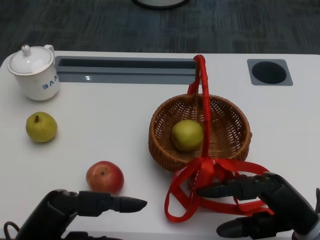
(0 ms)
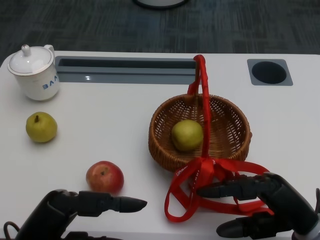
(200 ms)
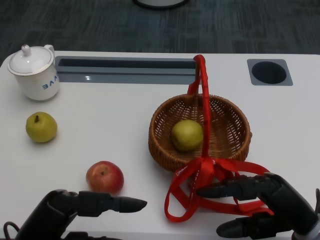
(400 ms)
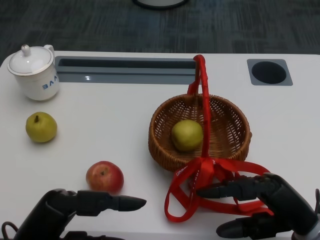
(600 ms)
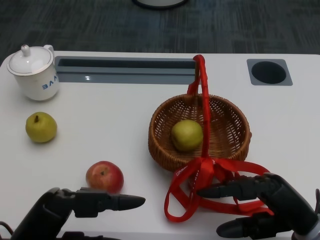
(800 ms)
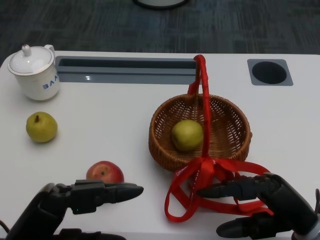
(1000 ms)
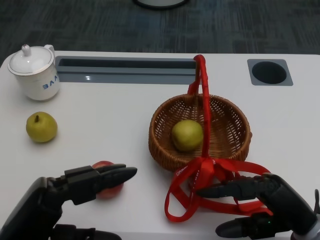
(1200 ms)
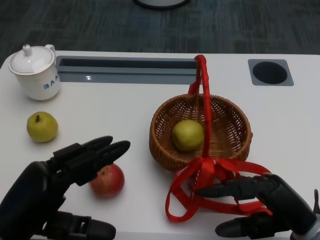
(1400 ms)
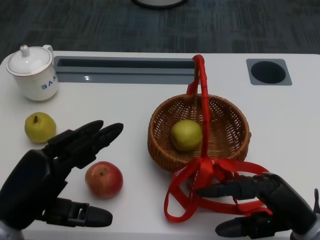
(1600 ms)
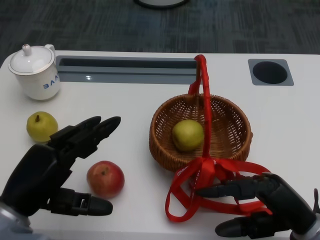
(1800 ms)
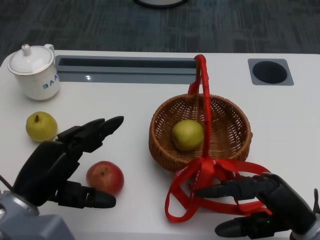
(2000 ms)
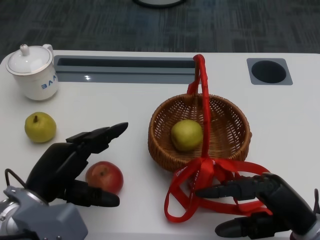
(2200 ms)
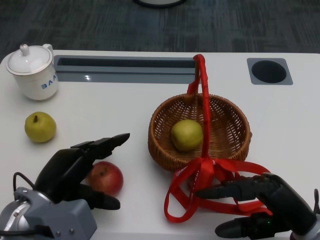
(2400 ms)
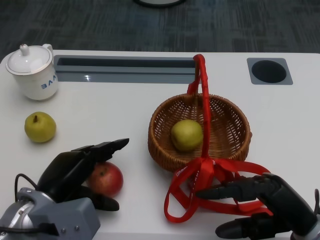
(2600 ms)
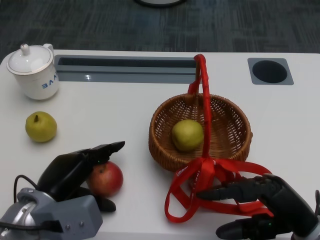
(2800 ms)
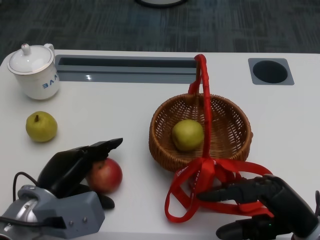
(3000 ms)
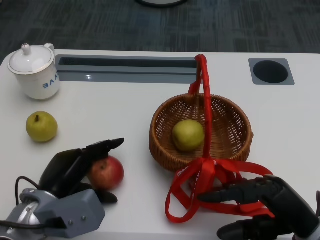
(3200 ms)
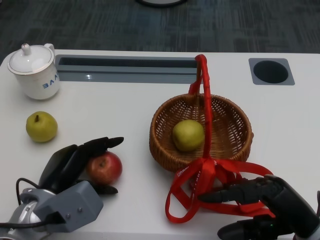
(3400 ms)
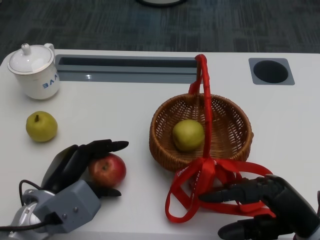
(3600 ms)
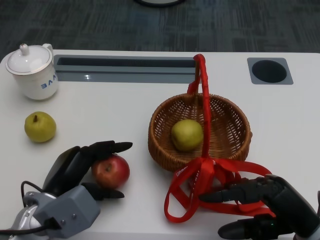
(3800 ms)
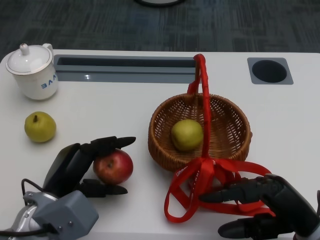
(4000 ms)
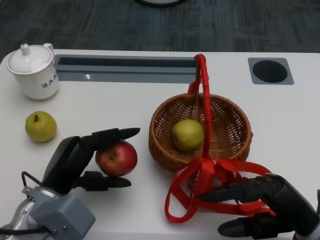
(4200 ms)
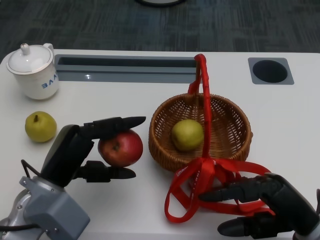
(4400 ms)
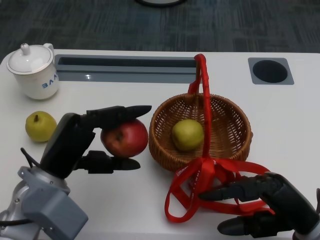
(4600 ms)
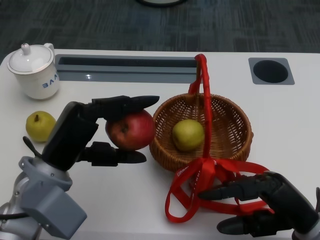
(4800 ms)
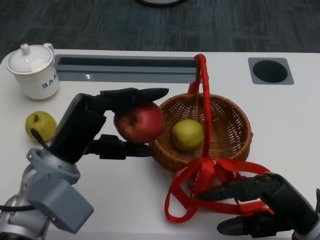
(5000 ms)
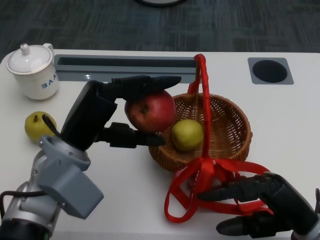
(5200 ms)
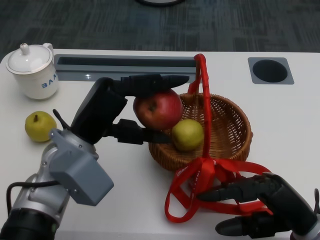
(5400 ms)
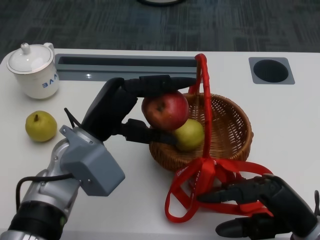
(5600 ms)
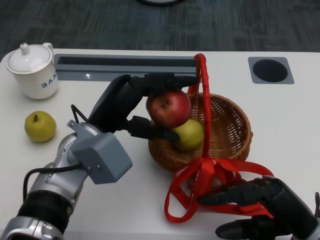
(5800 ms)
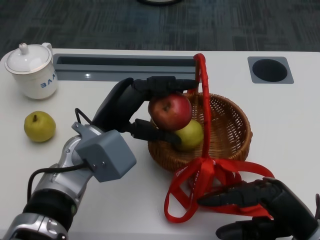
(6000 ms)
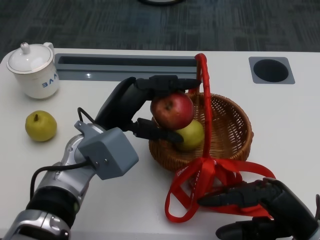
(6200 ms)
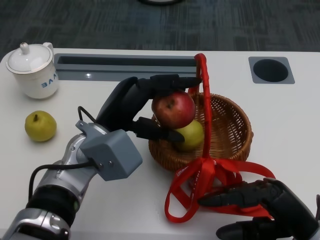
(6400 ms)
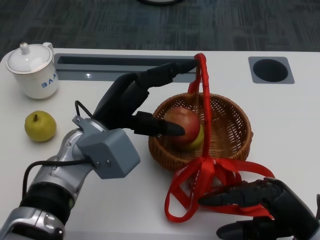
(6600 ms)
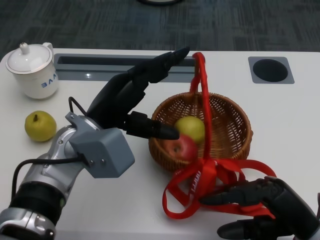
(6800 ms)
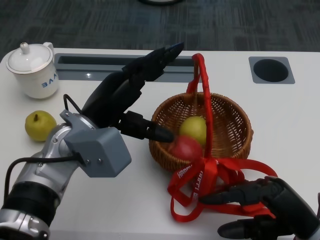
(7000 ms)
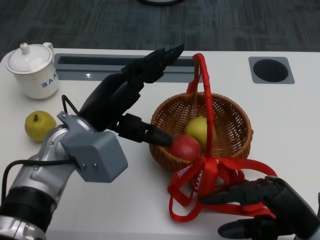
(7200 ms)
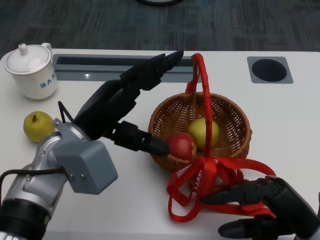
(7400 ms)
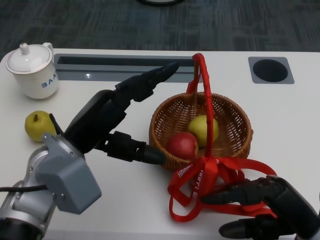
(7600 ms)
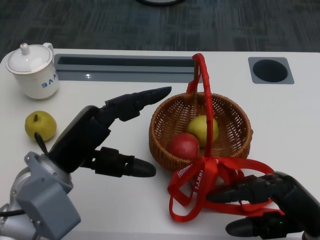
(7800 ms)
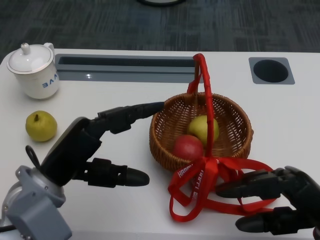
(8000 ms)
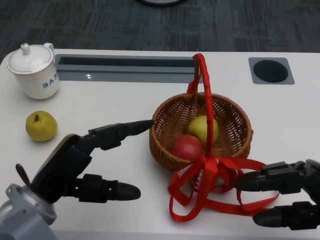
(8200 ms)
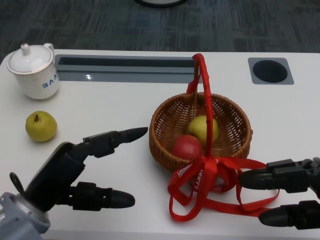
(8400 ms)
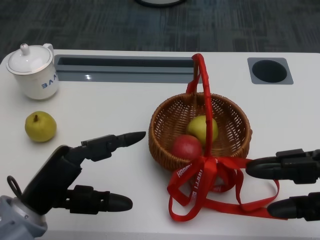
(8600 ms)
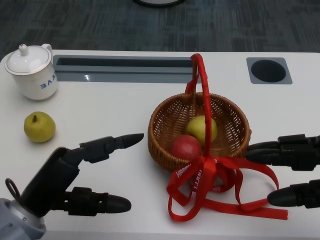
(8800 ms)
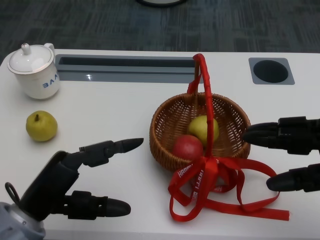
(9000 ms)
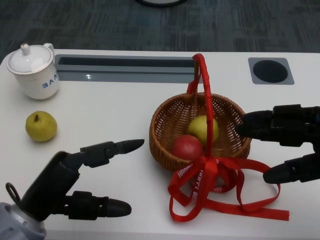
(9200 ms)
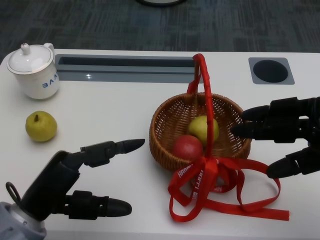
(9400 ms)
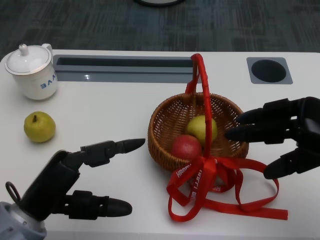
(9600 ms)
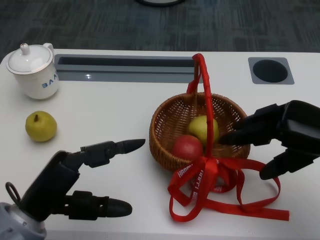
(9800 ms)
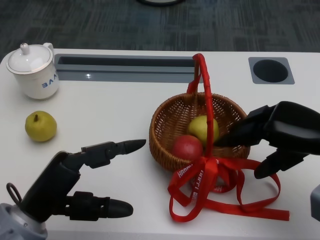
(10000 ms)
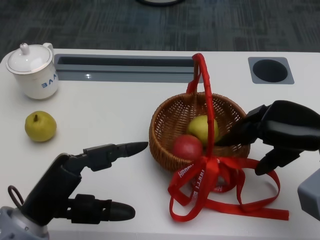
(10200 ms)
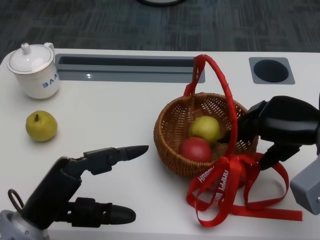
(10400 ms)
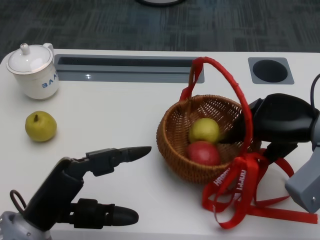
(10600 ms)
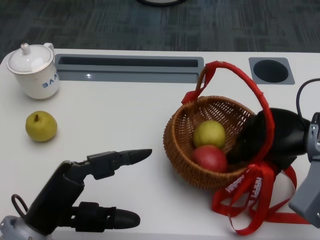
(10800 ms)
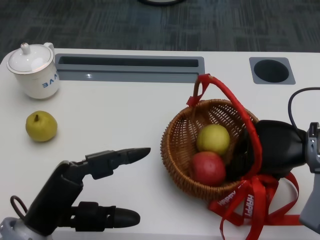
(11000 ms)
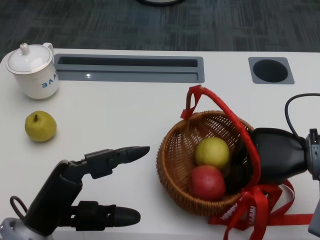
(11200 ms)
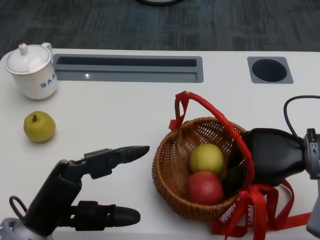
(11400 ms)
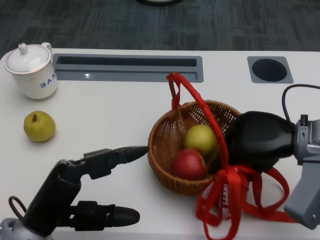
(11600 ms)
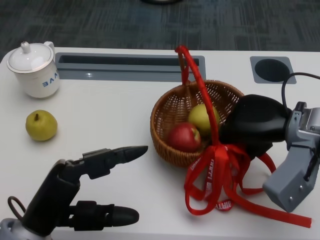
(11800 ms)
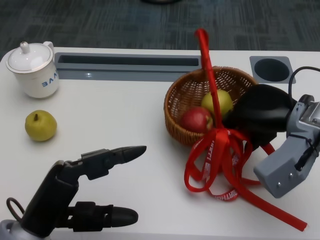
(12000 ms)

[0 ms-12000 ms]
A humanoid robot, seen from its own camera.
Step, 600 ms to 2800 ms: Grasp the apple with the left gripper.
Step, 3200 ms to 5400 ms: Place the apple into the basket with the left gripper.
Step, 5600 ms to 8600 ms: Grasp the basket with the right gripper.
Step, 8800 ms to 11600 ms: Move the basket to the front of the table with the right gripper.
1600 ms to 3000 ms: The left hand shifts some 10 cm downward and forward.
4400 ms to 6000 ms: The left hand goes some 10 cm to the right, forward and upward.
6000 ms to 7600 ms: The left hand changes place by some 5 cm.
7600 ms to 9000 ms: The left hand shifts some 10 cm backward and to the left. The right hand travels upward and to the right by about 10 cm.
9000 ms to 10400 ms: The right hand is displaced forward by approximately 10 cm.

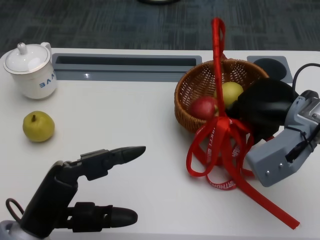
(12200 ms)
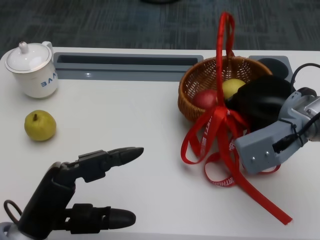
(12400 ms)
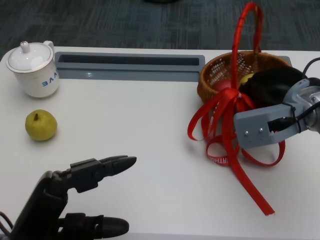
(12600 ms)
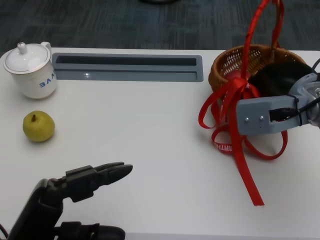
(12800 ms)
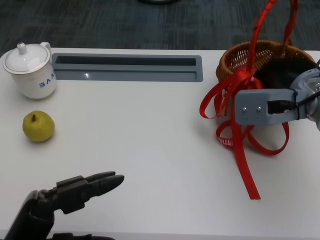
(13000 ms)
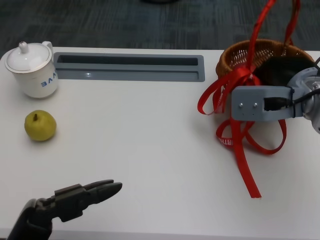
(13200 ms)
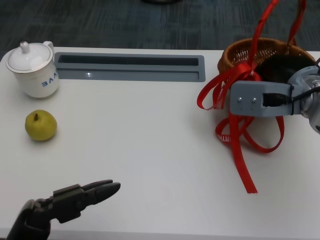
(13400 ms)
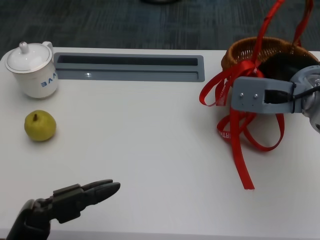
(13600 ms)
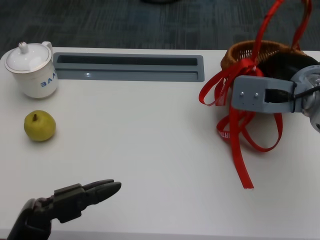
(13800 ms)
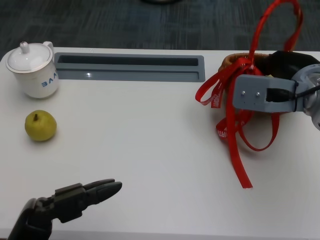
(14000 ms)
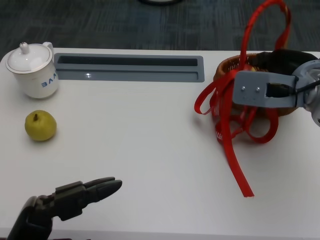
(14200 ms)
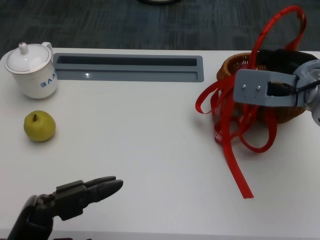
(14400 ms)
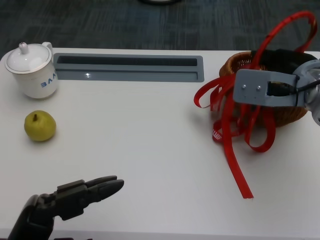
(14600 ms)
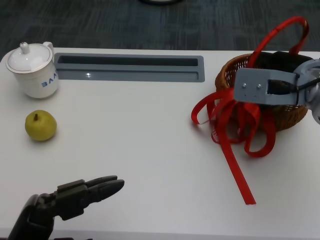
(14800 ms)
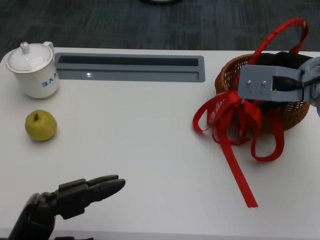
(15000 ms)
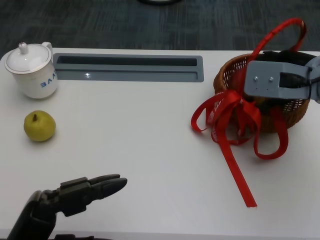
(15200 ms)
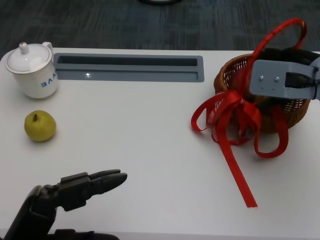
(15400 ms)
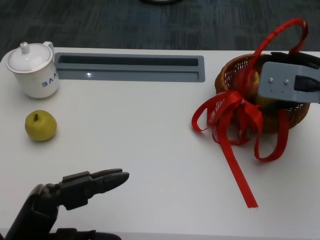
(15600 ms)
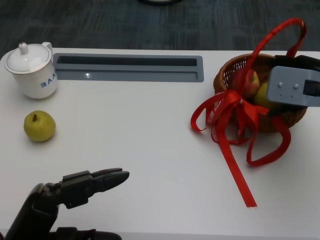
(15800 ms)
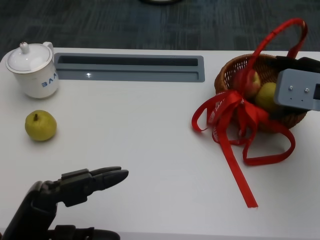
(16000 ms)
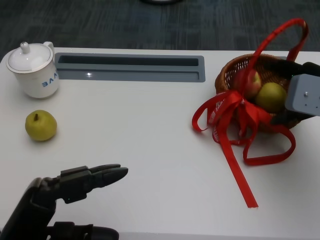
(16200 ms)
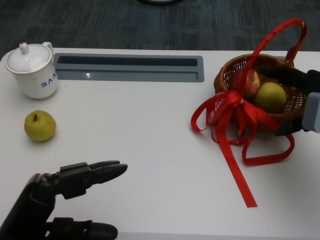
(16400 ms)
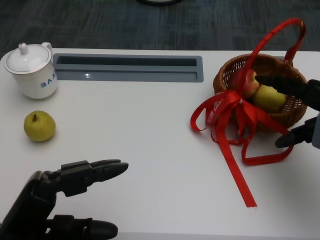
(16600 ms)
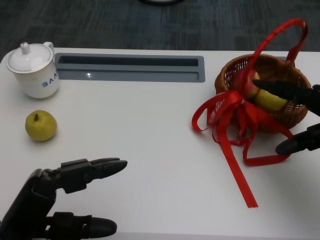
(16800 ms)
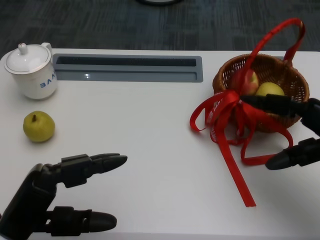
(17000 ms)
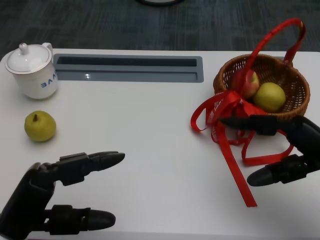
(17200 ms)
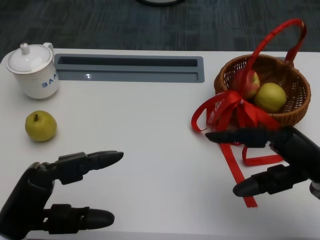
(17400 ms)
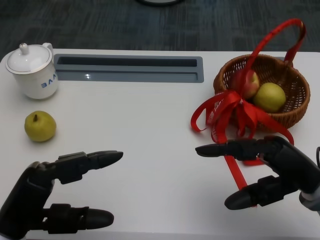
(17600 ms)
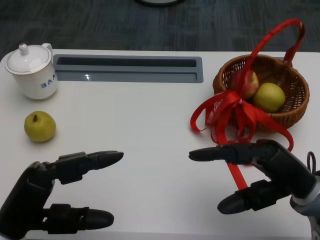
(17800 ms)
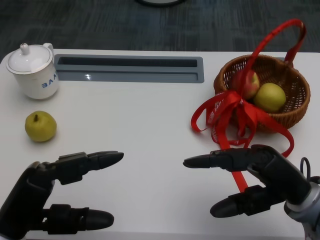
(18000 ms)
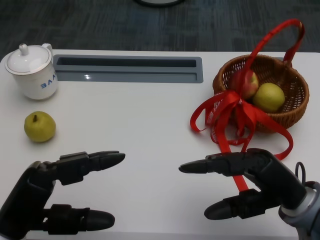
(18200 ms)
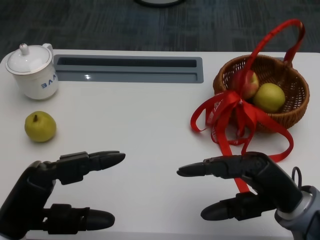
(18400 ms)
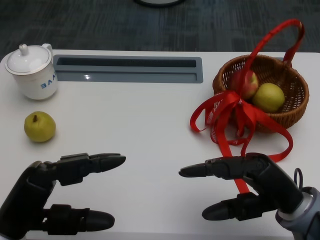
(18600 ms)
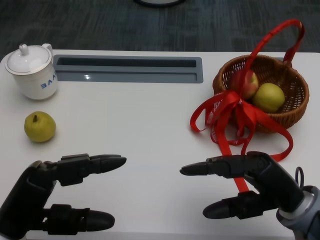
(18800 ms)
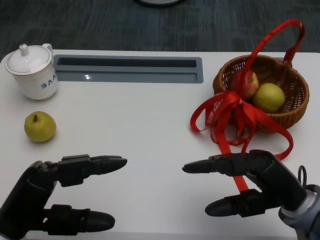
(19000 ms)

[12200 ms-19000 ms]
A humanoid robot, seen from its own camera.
12200 ms to 13600 ms: The left hand shifts by some 5 cm.
13600 ms to 15000 ms: The hands stay close to where they were, moving slightly.
15000 ms to 16200 ms: The right hand goes approximately 5 cm to the right.
16200 ms to 17600 ms: The right hand shifts about 10 cm backward and downward.
17600 ms to 19000 ms: The hands move only a little.

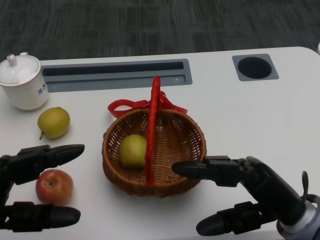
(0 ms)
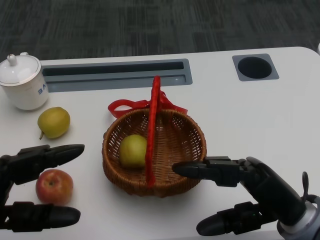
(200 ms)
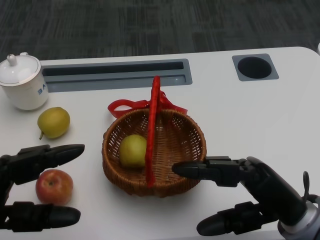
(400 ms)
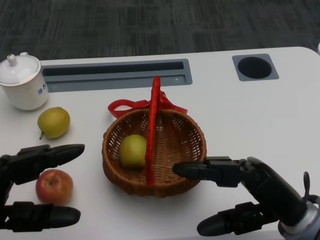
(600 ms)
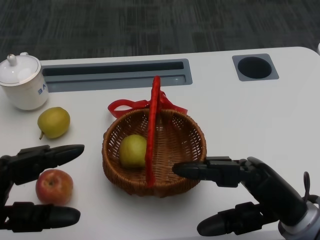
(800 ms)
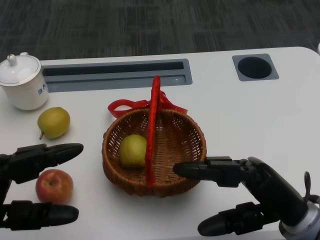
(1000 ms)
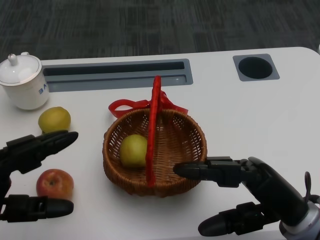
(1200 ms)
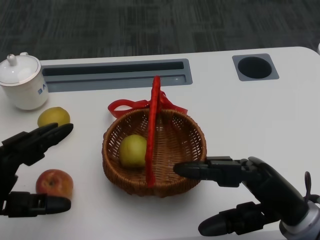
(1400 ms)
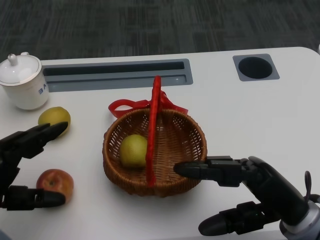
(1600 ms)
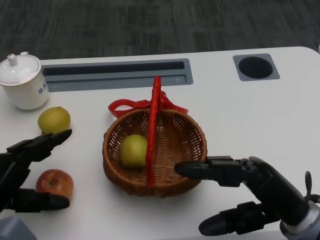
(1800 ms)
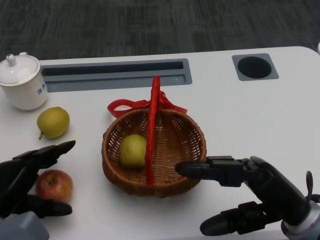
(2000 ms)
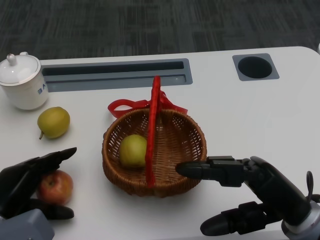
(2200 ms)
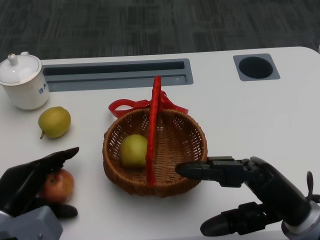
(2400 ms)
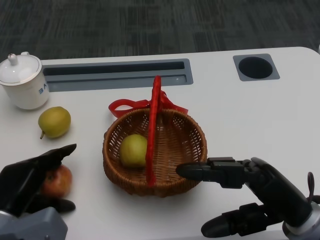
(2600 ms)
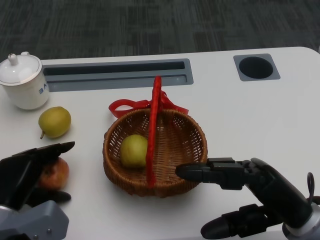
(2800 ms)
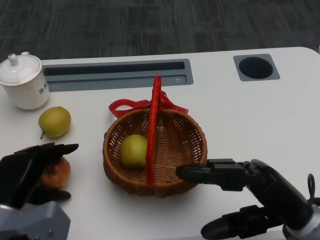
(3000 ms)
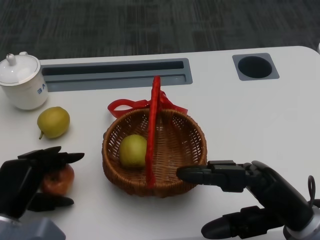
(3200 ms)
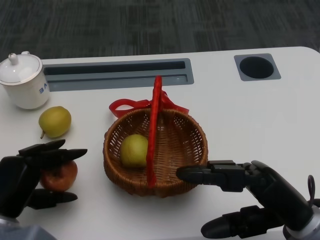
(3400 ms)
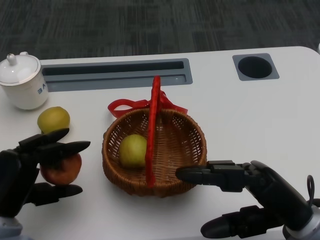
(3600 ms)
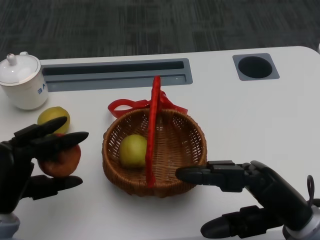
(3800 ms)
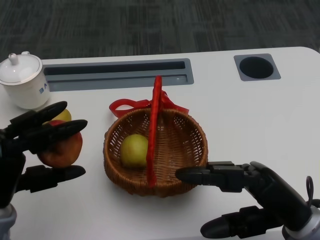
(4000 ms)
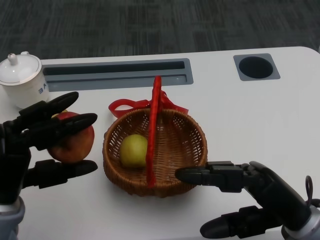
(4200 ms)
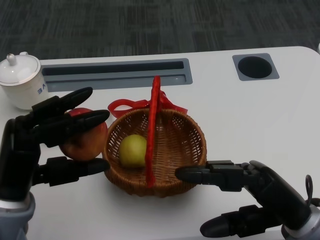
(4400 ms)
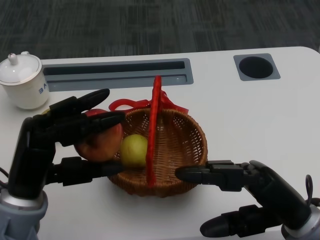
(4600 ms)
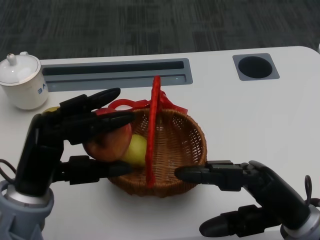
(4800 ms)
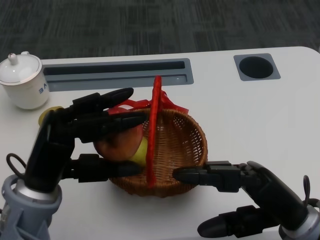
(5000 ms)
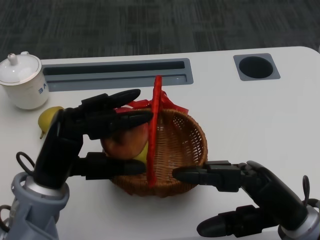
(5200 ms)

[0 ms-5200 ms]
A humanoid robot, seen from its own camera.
Step, 800 ms to 2200 ms: Grasp the apple with the left gripper.
Step, 2600 ms to 5200 ms: Place the apple into the basket with the left gripper.
1800 ms to 3400 ms: There are only small adjustments of the hands.
3400 ms to 5200 ms: The left hand shifts approximately 10 cm upward and to the right.
